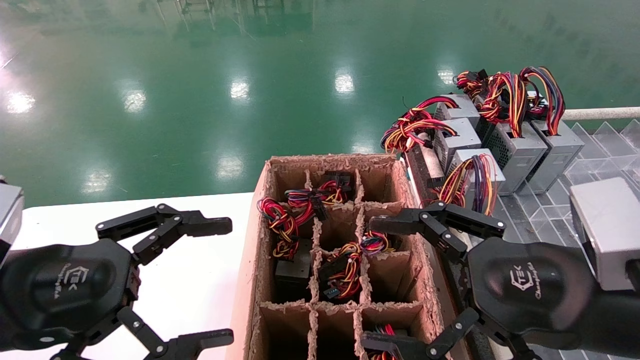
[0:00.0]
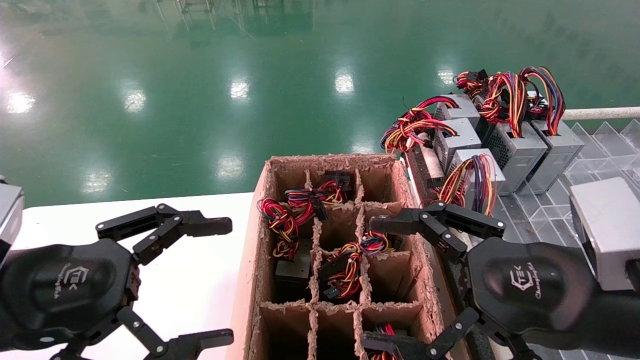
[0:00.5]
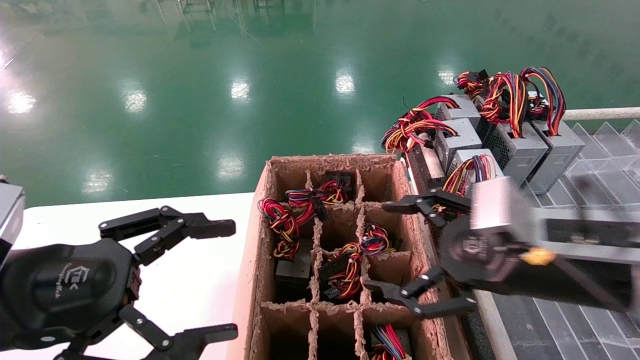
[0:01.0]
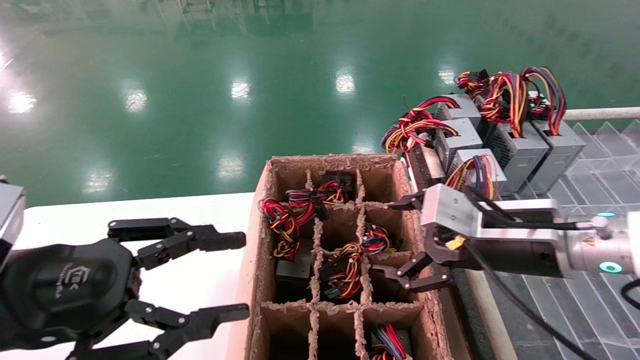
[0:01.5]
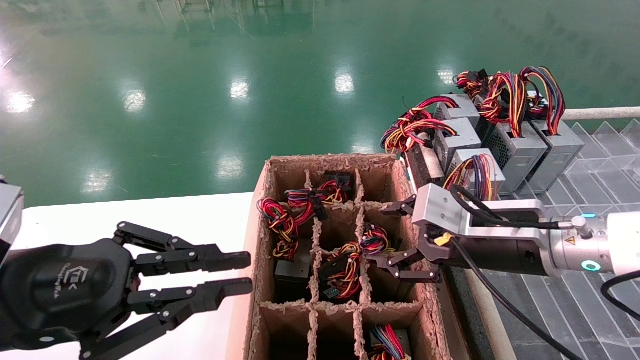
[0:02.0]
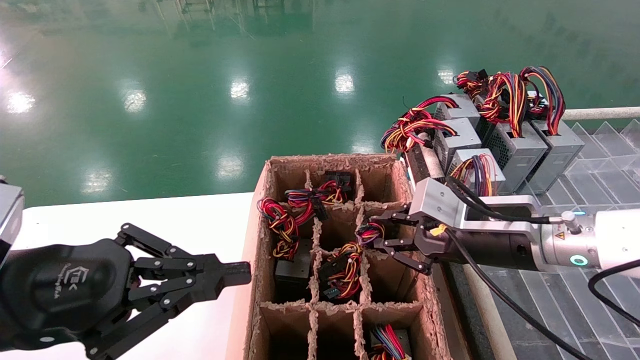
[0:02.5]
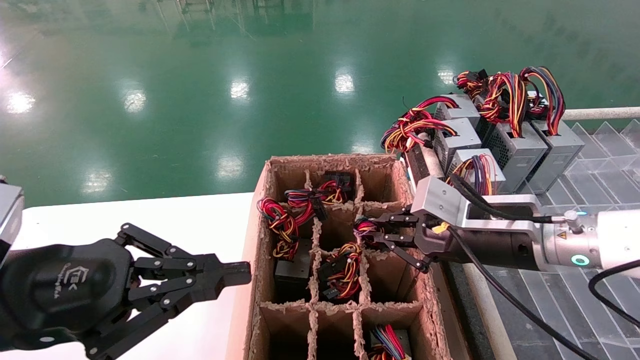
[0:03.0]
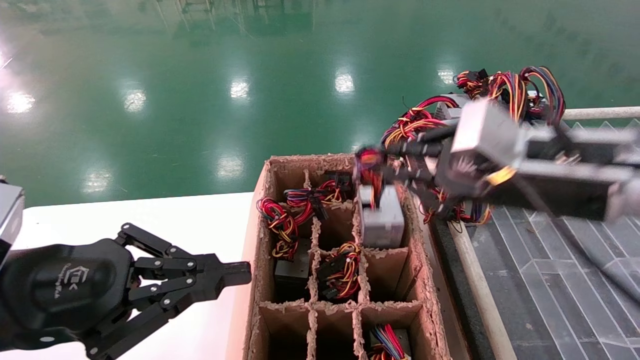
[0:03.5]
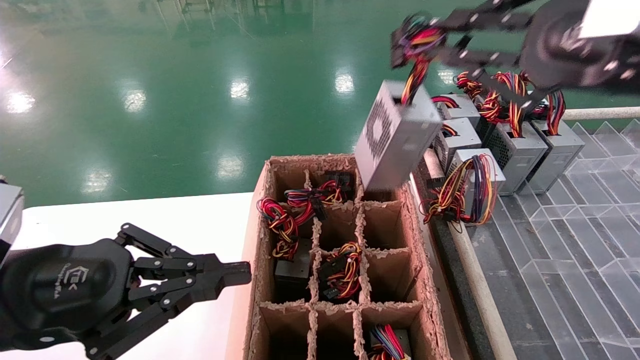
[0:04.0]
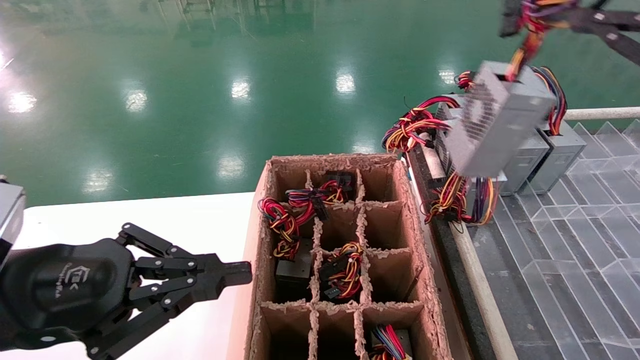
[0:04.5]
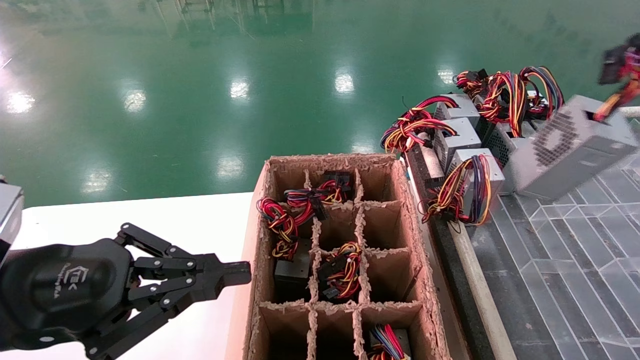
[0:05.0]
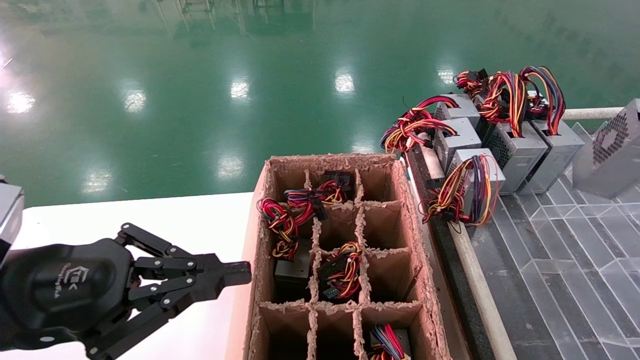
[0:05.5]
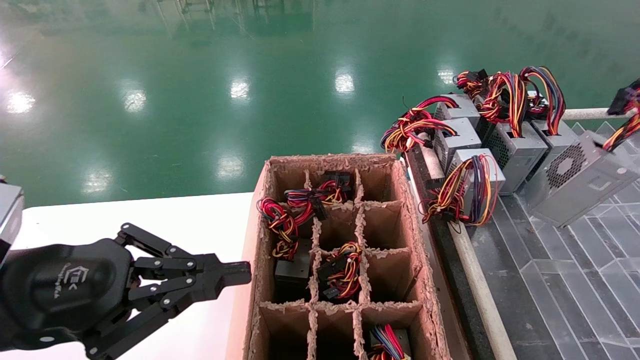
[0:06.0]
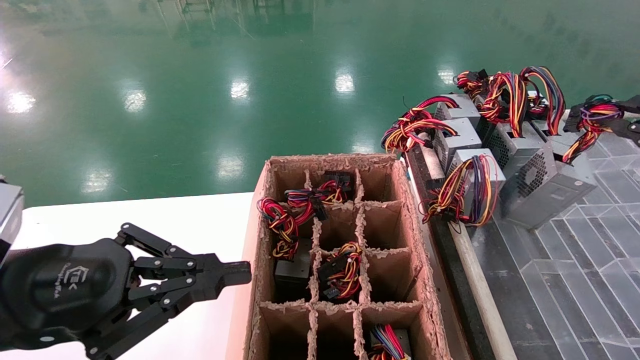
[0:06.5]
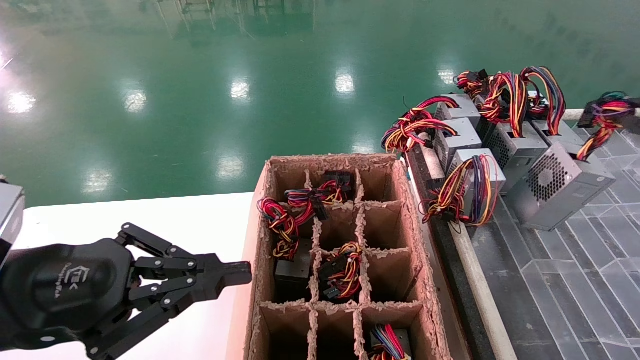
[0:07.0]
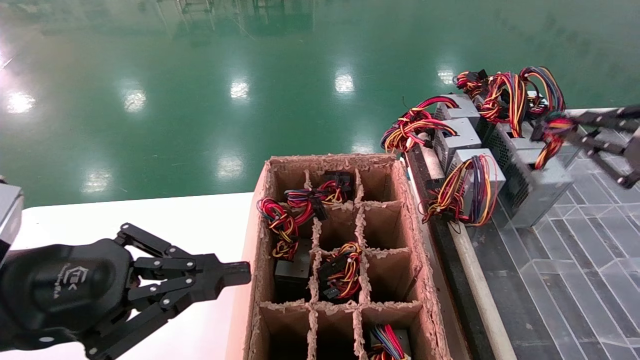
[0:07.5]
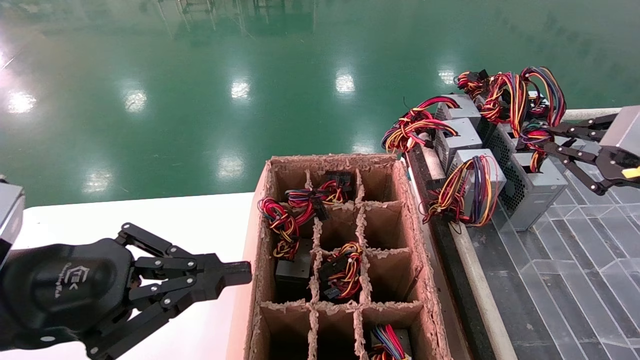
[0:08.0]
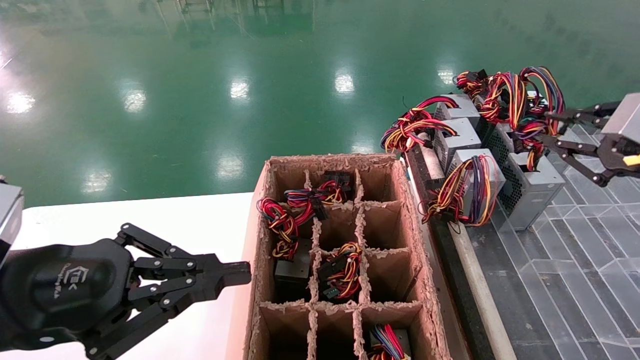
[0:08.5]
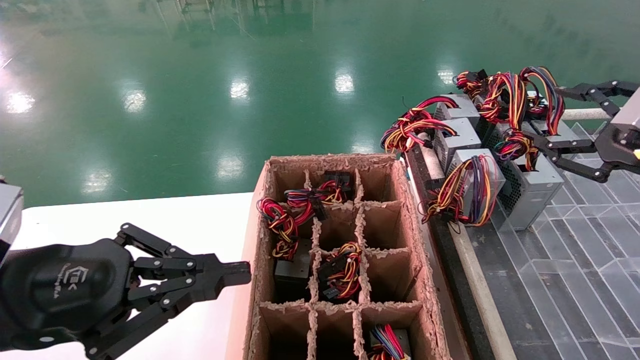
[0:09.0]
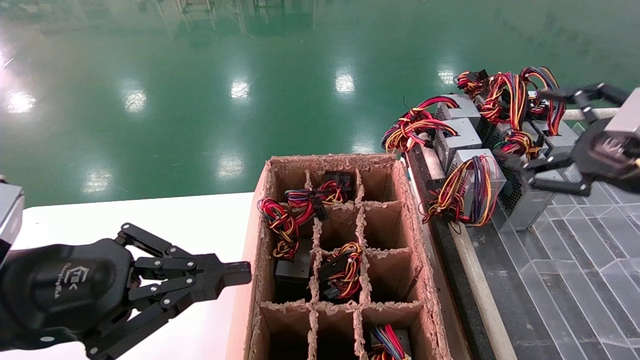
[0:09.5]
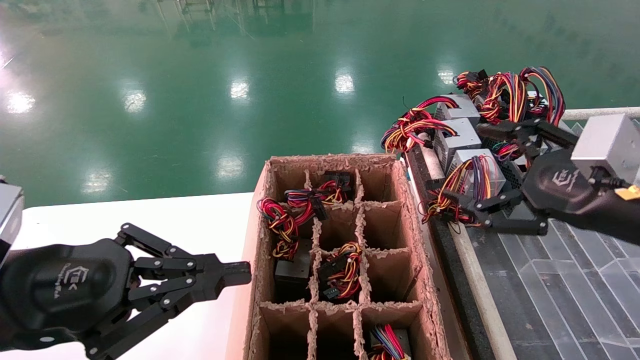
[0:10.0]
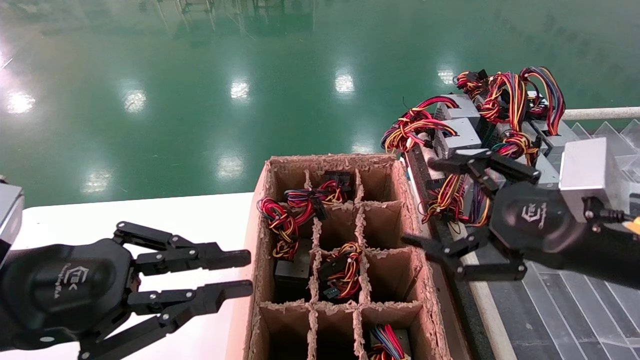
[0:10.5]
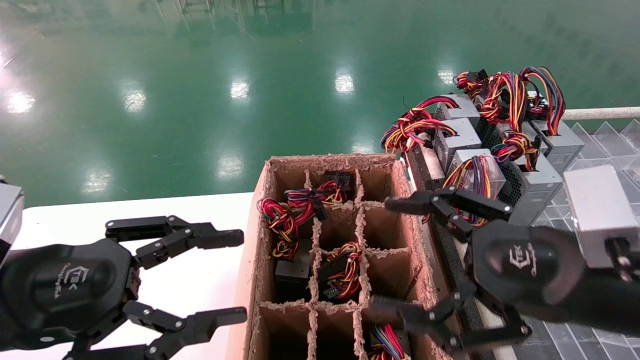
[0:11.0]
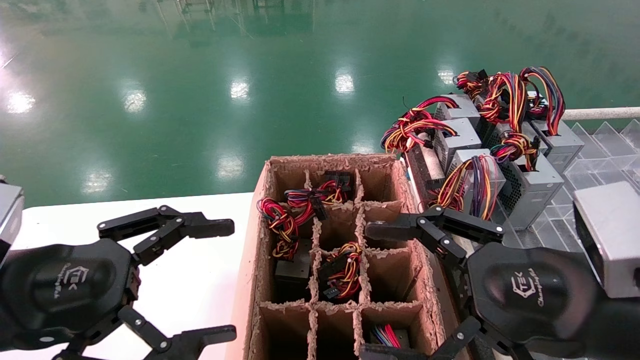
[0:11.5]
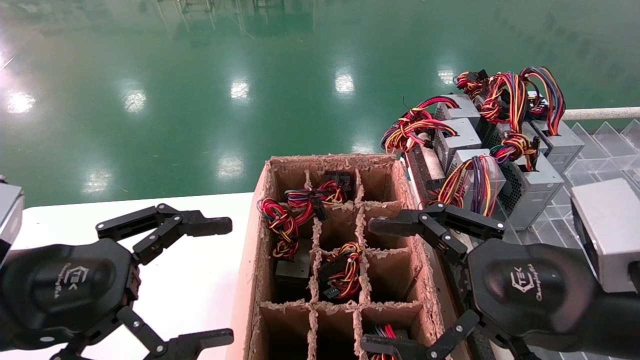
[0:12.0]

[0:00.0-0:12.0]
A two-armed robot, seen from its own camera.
Step, 0:01.5 to 0:03.0: Grab the main unit power supply from the containment box.
Step, 0:03.5 to 0:08.5: Place the main unit power supply in the designated area.
0:00.0 to 0:02.0: The left gripper closes. Meanwhile the right gripper shifts roughly 10 cm forward.
0:02.0 to 0:04.0: The right gripper heads upward and backward, covering some 20 cm, and closes its fingers.
0:04.0 to 0:06.0: The right gripper goes roughly 15 cm to the right.
0:06.0 to 0:08.0: The right gripper shifts some 5 cm forward.
0:08.0 to 0:10.0: The right gripper is displaced to the left by some 10 cm, and opens.
0:10.0 to 0:12.0: The right gripper shifts about 10 cm to the left and backward. The left gripper opens.

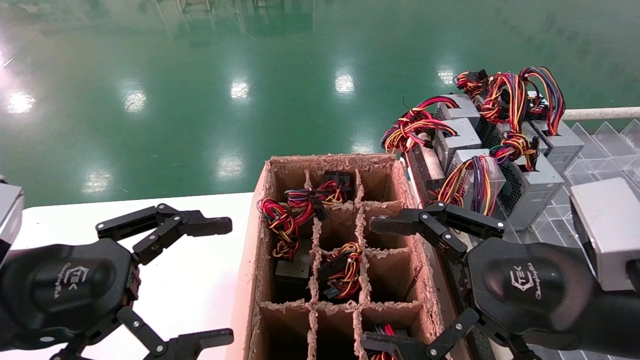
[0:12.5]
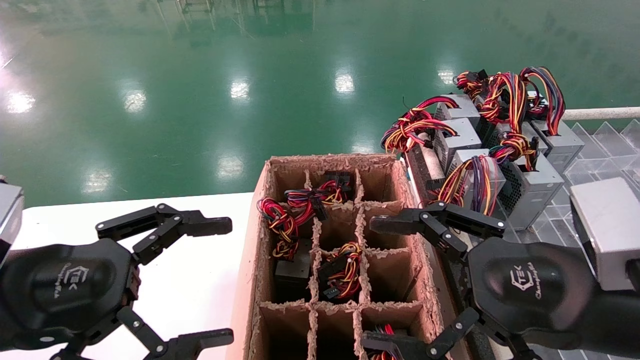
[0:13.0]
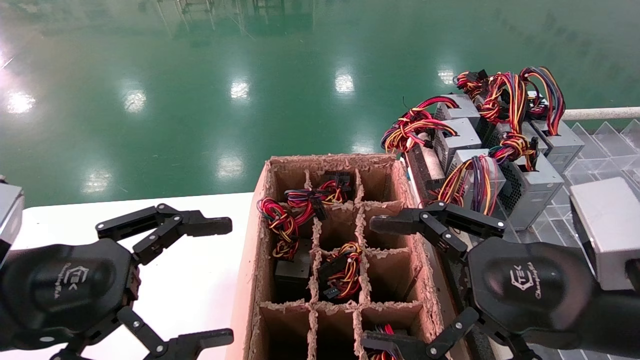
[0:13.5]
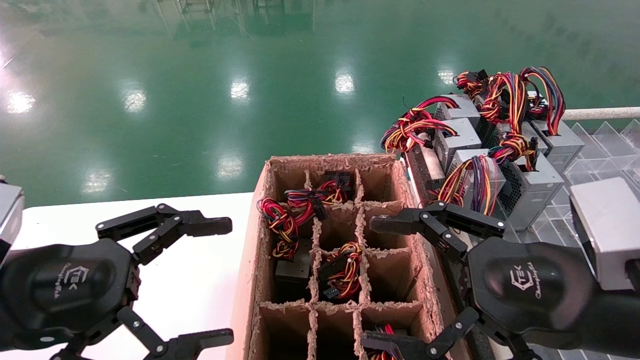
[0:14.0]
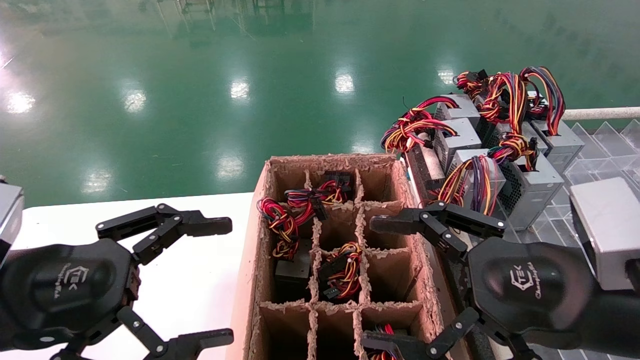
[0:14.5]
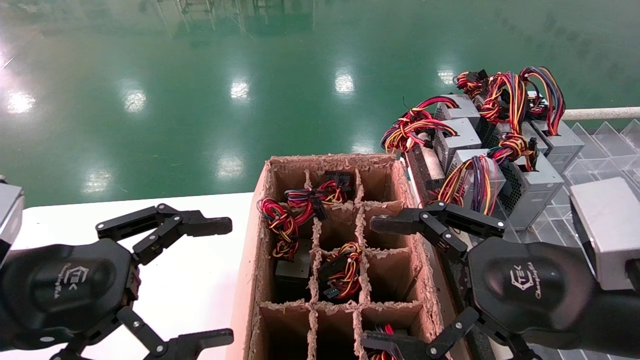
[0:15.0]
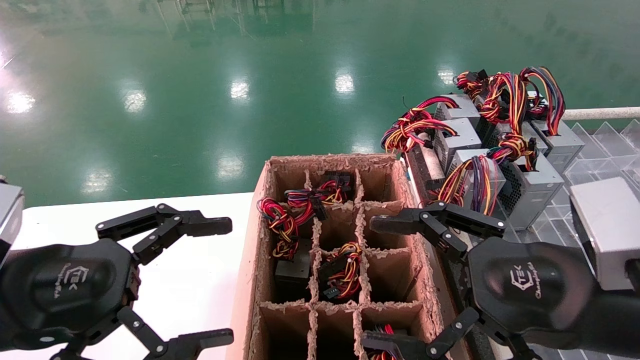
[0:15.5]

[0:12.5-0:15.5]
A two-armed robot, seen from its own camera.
0:12.5 to 0:15.5: Neither gripper changes place.

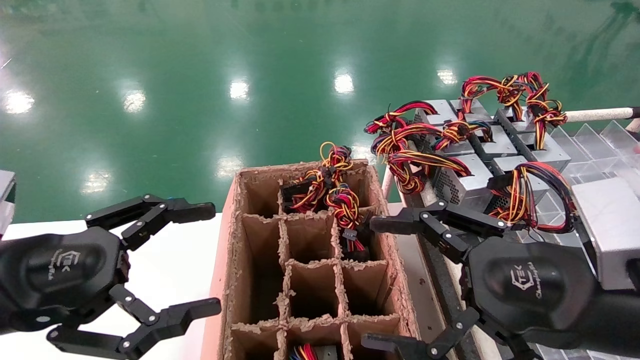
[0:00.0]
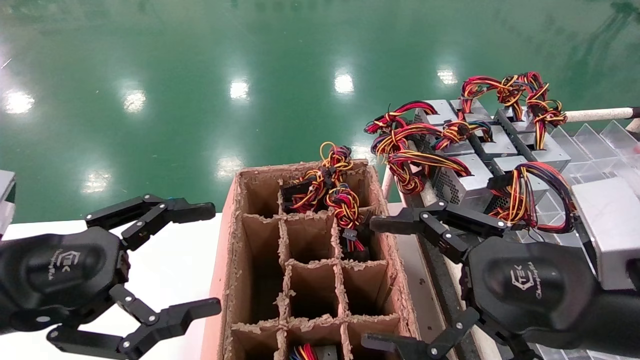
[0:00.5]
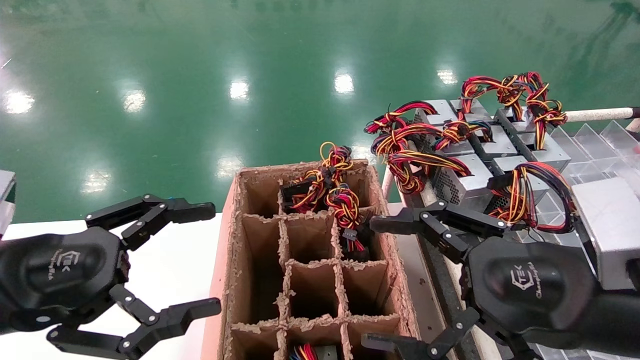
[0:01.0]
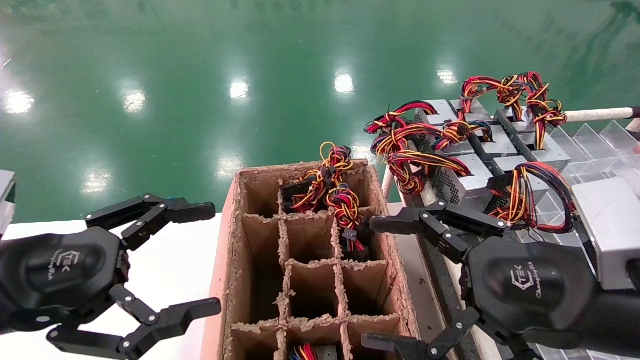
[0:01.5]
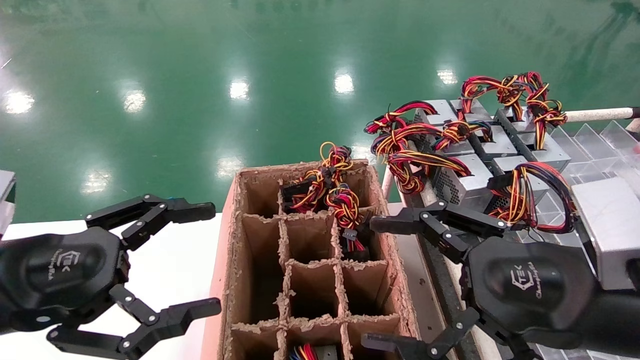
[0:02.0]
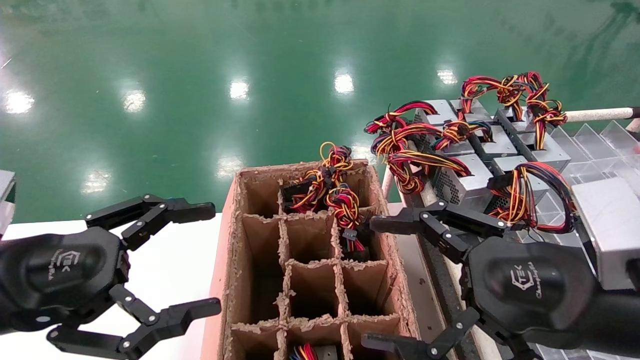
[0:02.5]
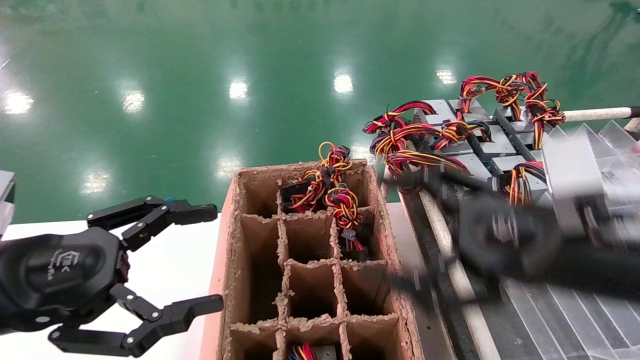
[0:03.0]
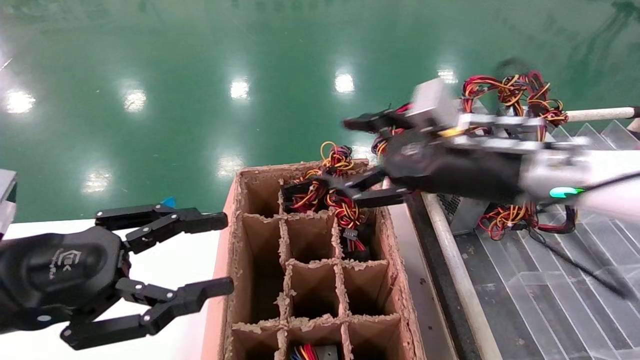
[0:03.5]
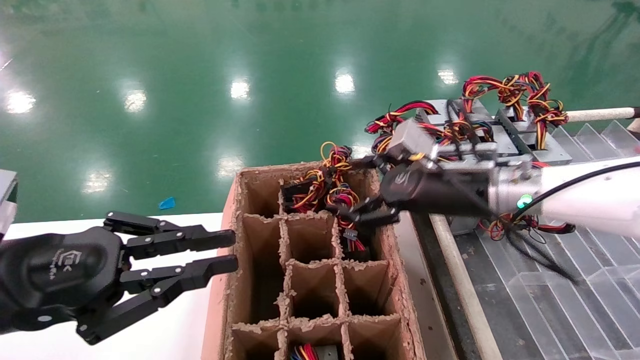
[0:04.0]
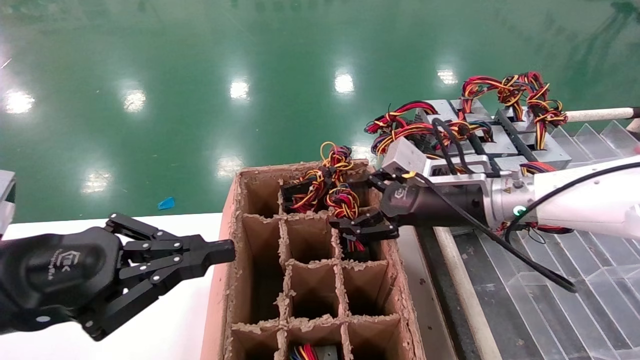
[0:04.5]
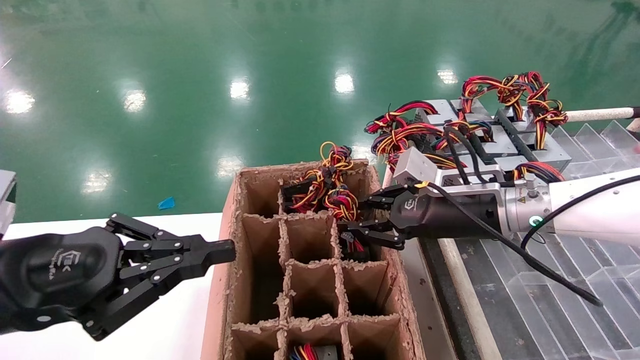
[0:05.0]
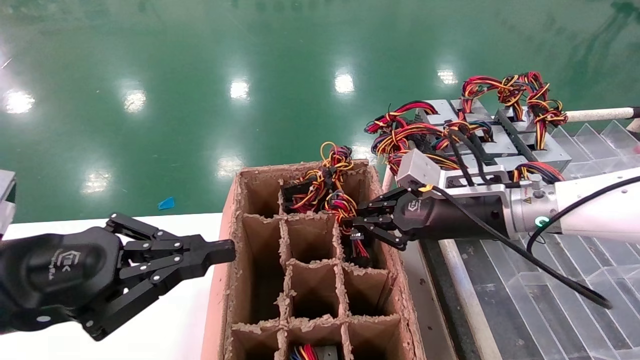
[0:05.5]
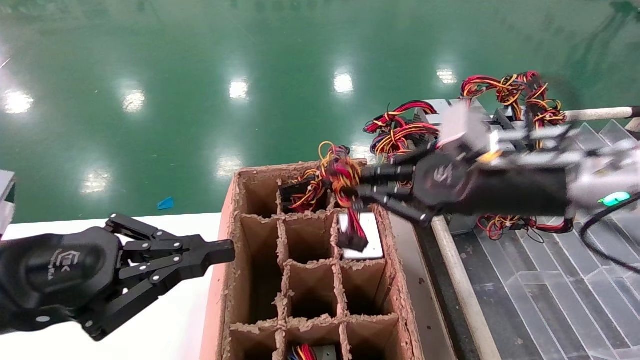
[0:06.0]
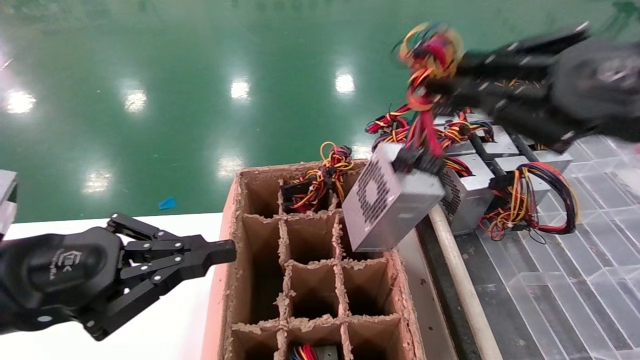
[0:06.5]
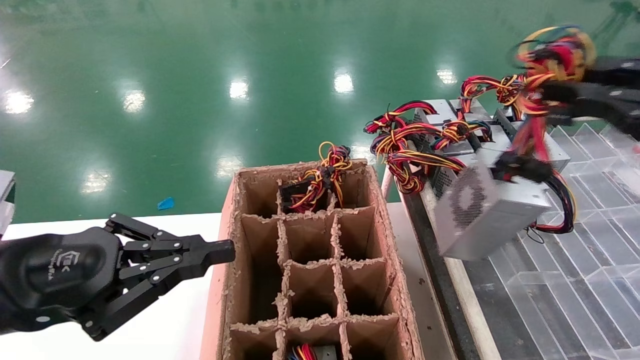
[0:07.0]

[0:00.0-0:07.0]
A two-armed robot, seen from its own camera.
Step, 0:03.5 to 0:05.5: Grab the main unit power supply from the containment box.
0:00.0 to 0:02.0: Neither gripper changes place.
0:02.0 to 0:03.5: The right gripper heads forward, covering about 15 cm.
0:03.5 to 0:05.0: The left gripper closes up, while the right gripper heads downward, covering roughly 5 cm, and closes its fingers.
0:05.0 to 0:07.0: The right gripper moves backward, to the right and upward, about 30 cm, and closes up.
